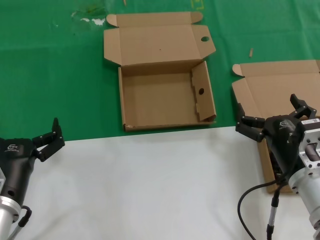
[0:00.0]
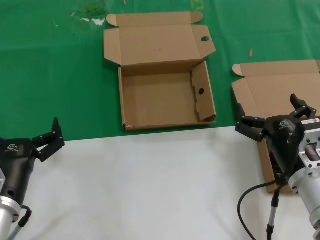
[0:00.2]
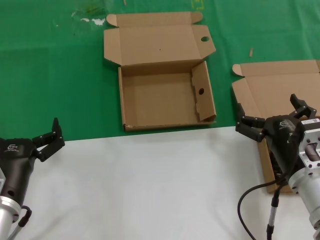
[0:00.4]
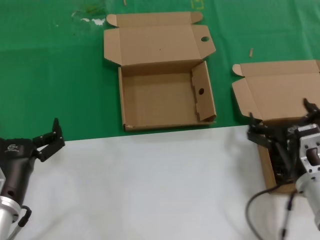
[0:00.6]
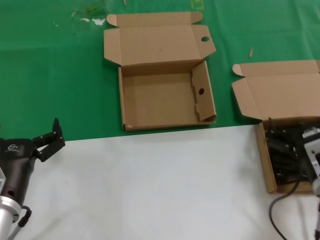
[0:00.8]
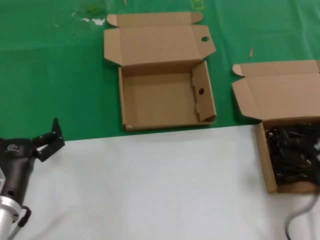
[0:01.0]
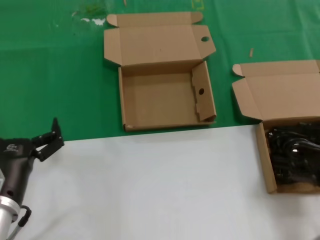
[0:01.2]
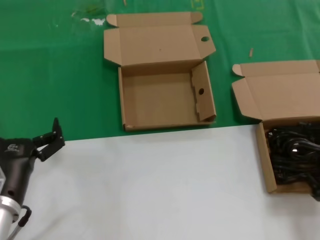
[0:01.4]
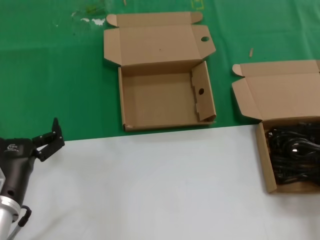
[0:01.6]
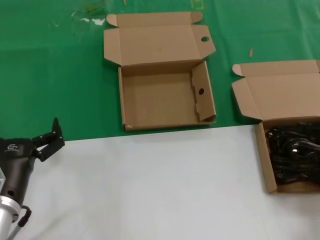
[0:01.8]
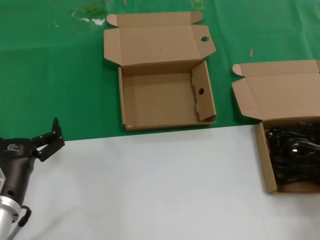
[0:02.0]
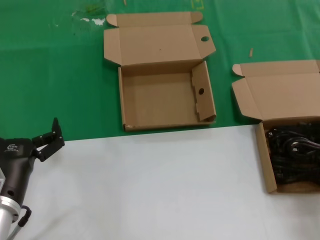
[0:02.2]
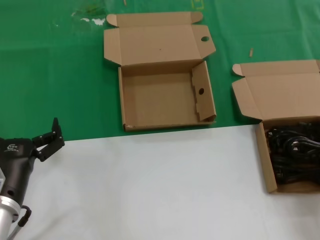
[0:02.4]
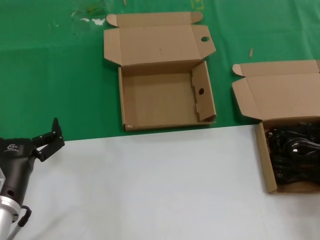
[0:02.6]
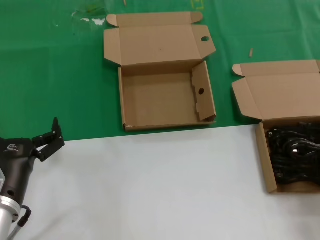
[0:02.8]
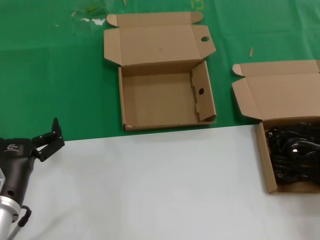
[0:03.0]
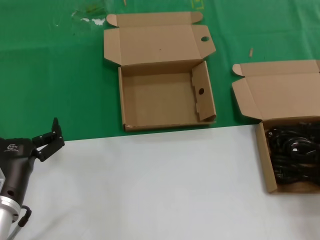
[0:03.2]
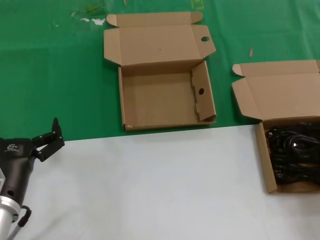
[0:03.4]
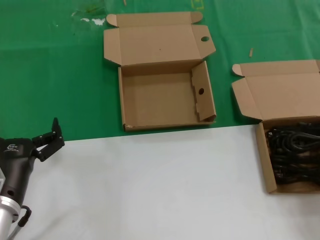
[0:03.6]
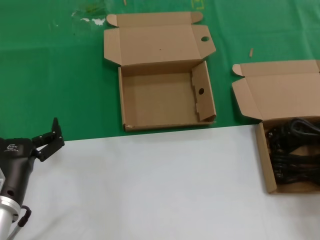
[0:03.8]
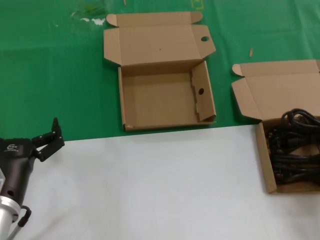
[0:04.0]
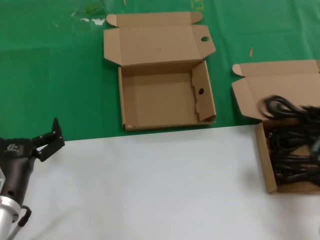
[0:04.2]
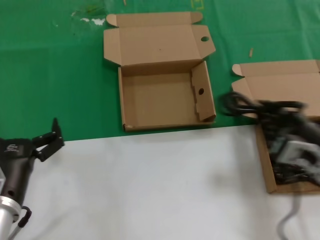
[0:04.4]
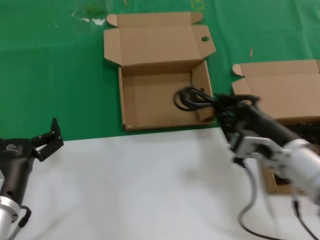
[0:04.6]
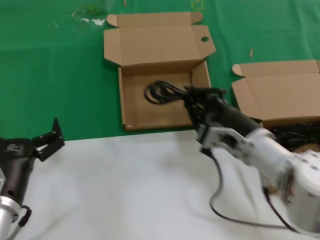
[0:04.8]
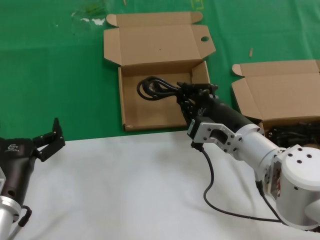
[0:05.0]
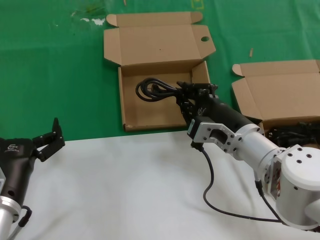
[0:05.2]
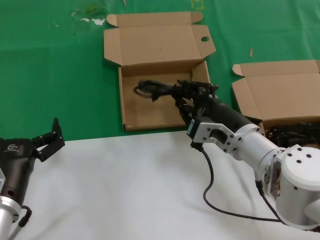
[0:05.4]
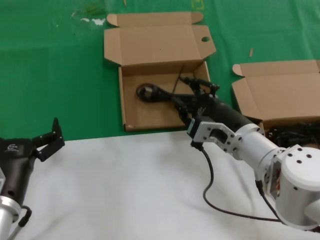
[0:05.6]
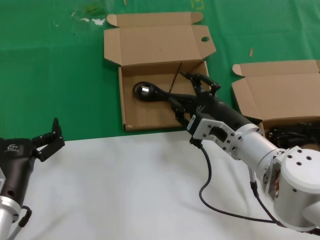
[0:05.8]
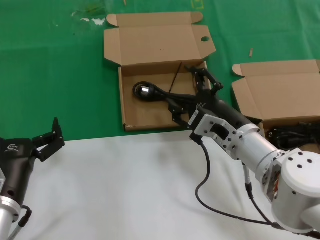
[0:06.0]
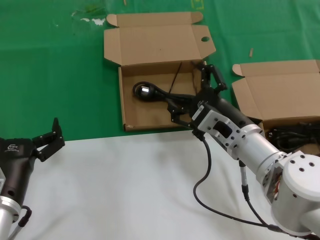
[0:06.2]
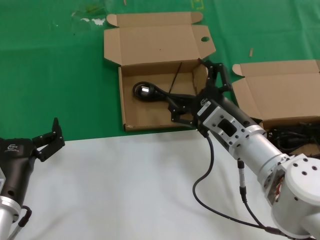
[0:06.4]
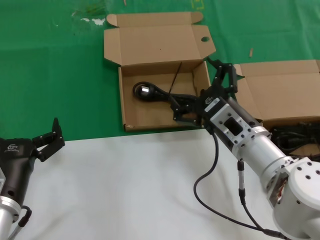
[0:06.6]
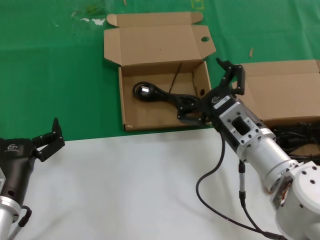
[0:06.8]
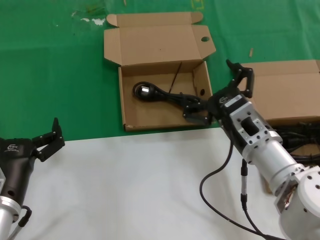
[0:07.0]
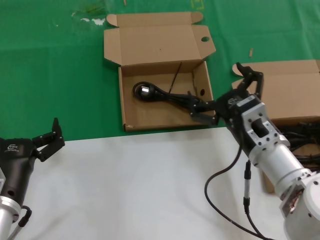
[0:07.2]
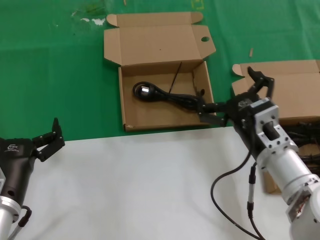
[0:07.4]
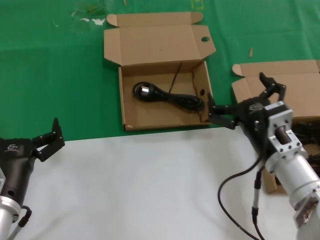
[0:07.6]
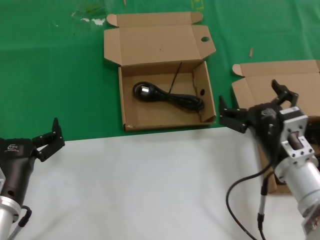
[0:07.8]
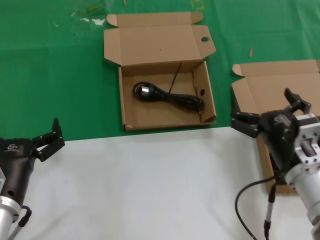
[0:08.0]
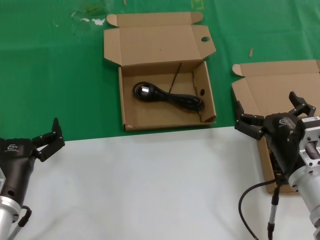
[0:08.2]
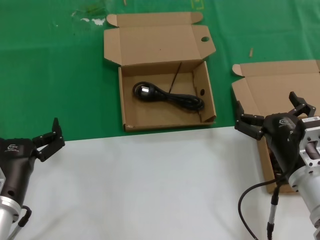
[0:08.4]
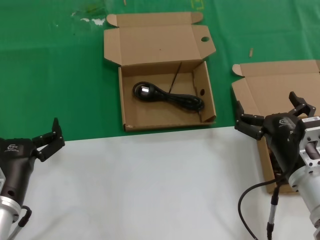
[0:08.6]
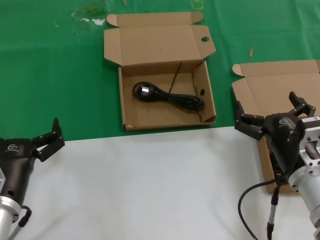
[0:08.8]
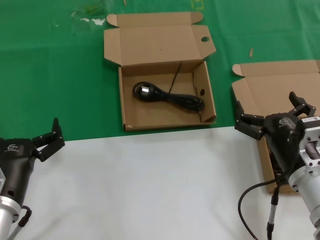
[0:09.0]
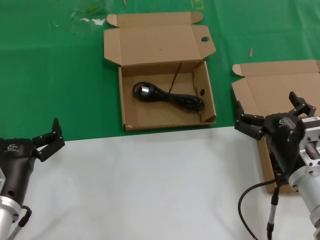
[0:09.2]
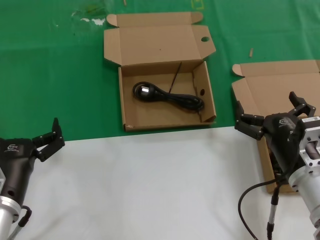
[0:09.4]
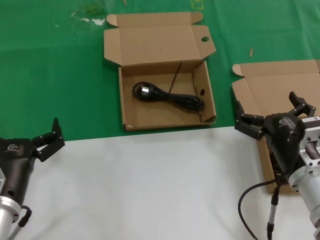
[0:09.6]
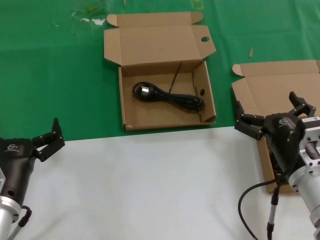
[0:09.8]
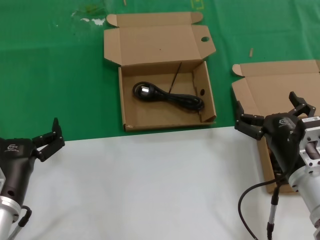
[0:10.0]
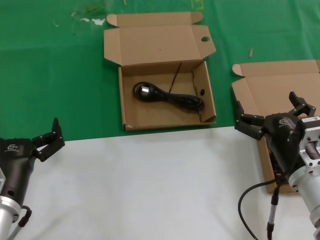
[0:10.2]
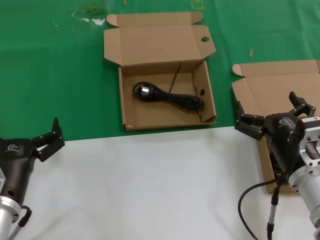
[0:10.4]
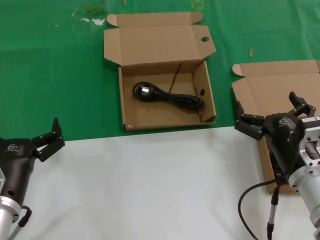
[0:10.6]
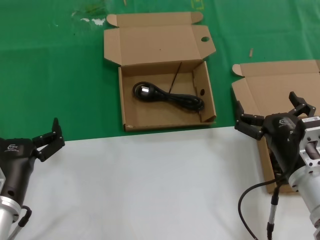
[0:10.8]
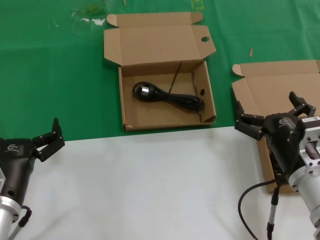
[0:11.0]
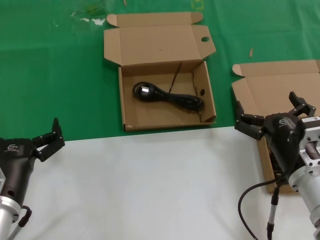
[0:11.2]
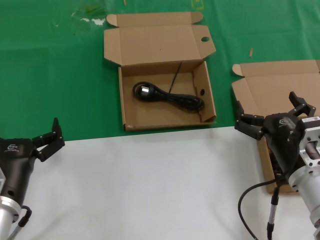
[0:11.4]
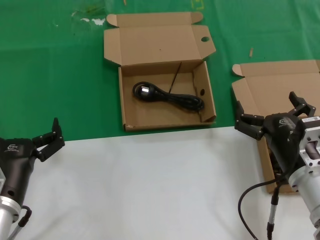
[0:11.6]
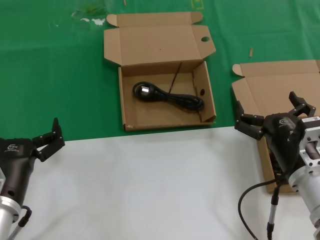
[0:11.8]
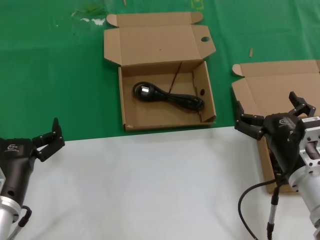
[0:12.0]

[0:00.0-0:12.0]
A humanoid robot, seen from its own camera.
Task of the whole recording: take the parts from the box containing them and put them into an empty box.
Step, 0:00.0 to 0:03.0: Grasp the data cable.
Step, 0:03.2 to 0:06.6: Place the data cable in the another box.
0:00.0 to 0:01.6: The right hand moves to the right and backward, roughly 15 cm.
0:03.0 to 0:04.4: The right hand goes some 10 cm to the left.
0:04.4 to 0:06.0: The right hand moves to the left and forward, some 15 cm.
0:06.0 to 0:07.6: The right hand shifts by approximately 5 cm.
0:07.6 to 0:09.0: There are only small adjustments of the hands.
0:09.0 to 0:12.0: The two hands keep their place.

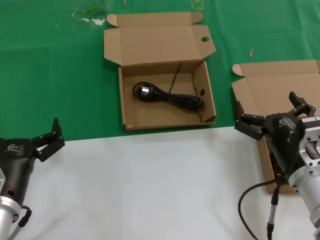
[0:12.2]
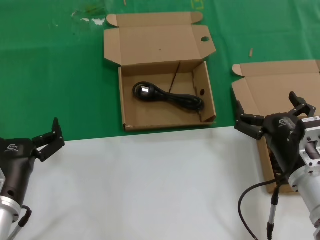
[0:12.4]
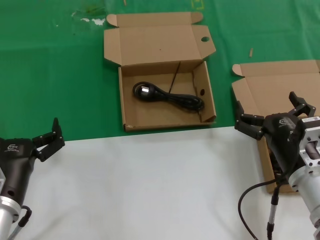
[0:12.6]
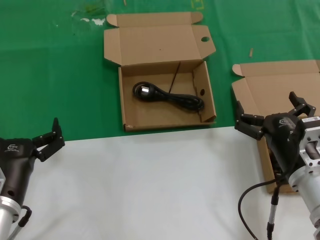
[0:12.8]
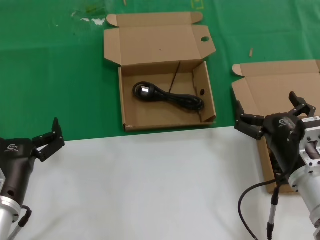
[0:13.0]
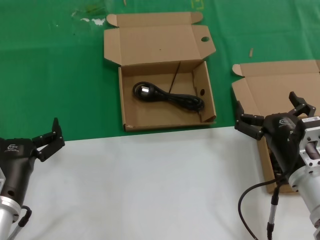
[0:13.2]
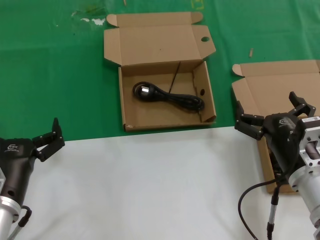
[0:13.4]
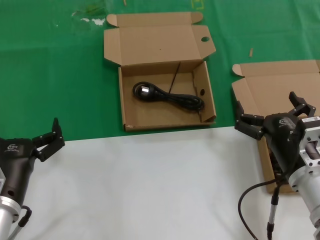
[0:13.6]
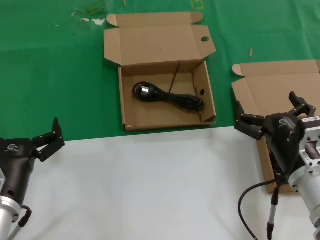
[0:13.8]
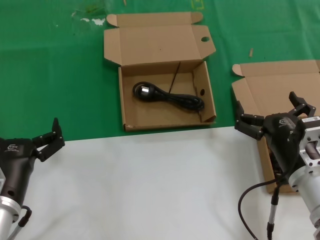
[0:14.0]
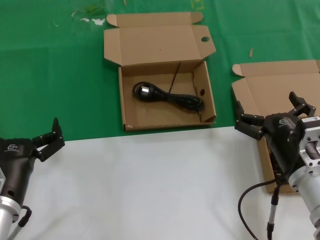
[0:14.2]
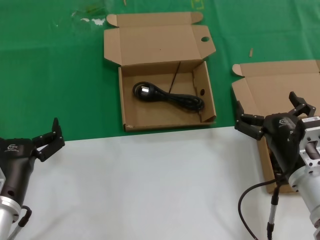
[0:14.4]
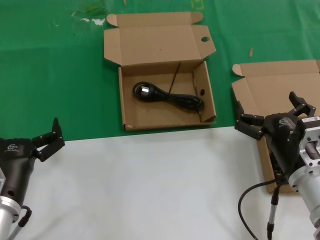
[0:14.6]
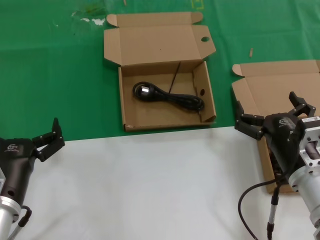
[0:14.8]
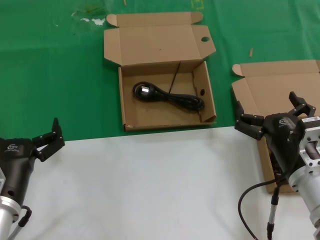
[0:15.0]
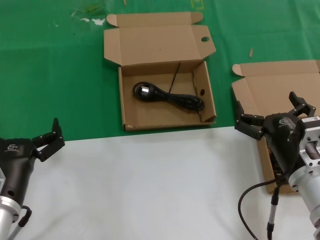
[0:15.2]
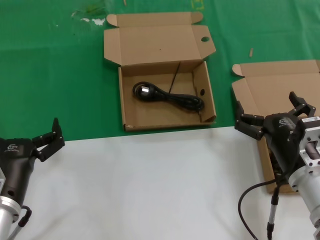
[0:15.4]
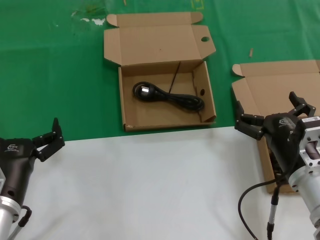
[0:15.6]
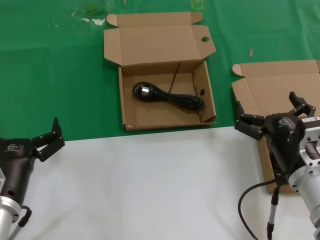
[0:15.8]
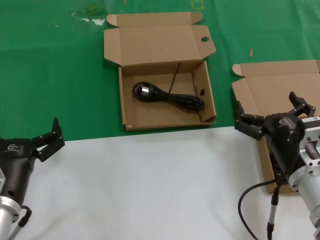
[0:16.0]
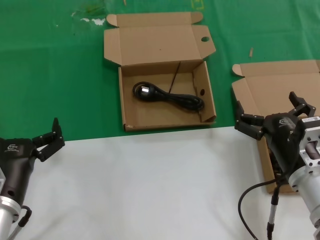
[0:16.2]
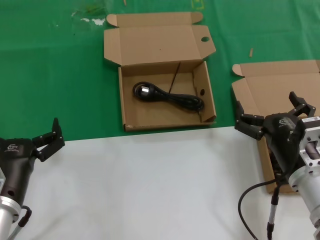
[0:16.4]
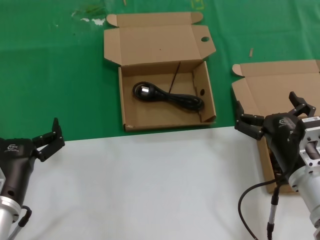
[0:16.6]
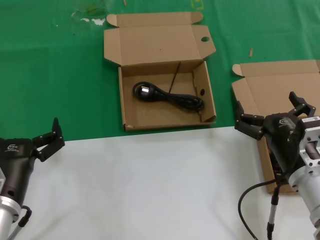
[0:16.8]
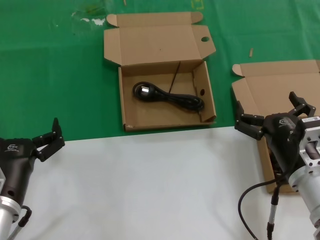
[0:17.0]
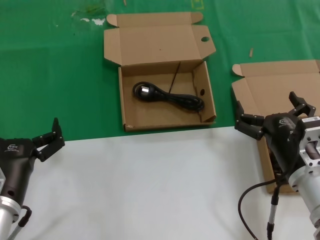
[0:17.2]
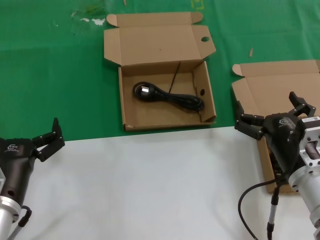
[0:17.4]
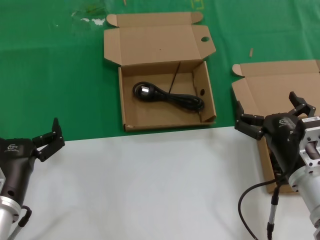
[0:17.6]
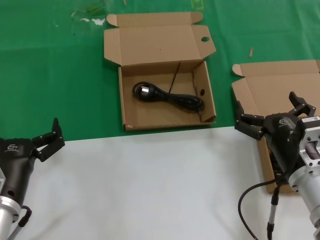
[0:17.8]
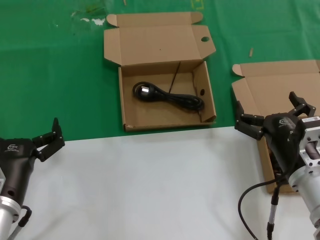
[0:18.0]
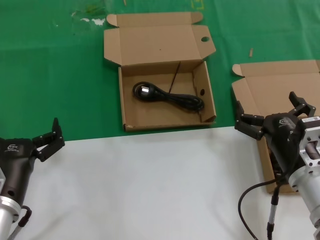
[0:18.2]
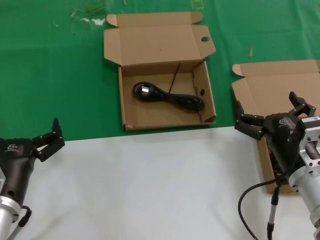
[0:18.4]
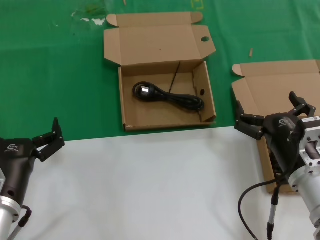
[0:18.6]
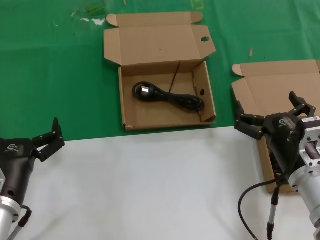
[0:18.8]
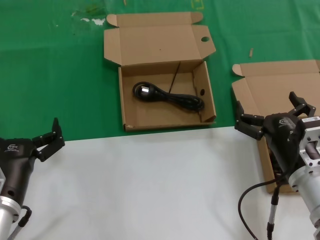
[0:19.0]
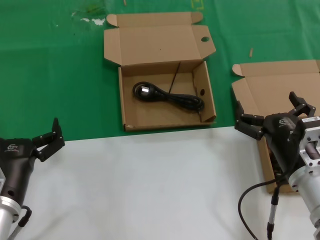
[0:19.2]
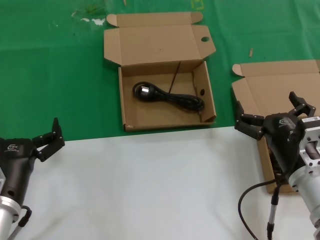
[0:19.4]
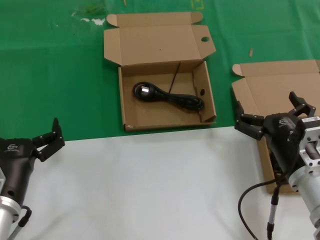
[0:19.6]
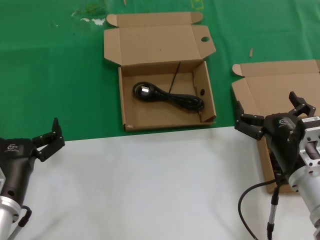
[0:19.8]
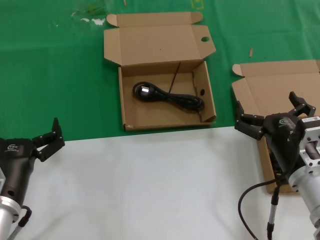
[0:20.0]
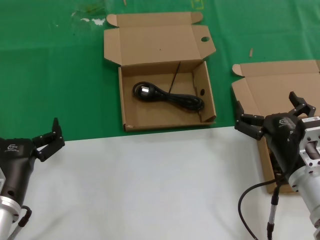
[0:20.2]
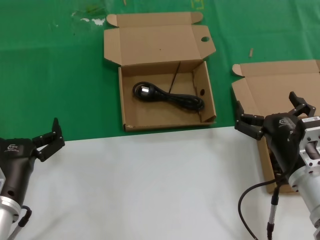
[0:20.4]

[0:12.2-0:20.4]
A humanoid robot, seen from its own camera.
Task of the whole recording: take the parts from the box containing them and put them into an empty box.
0:12.2 to 0:20.4: Neither hand changes place.
